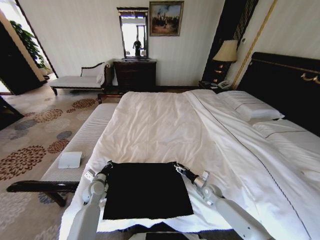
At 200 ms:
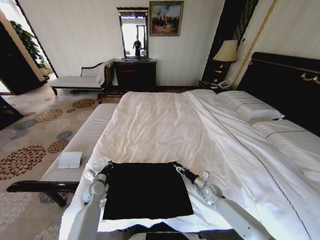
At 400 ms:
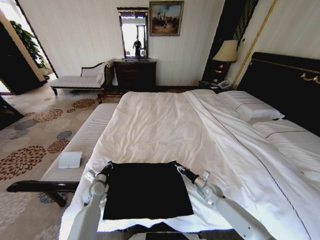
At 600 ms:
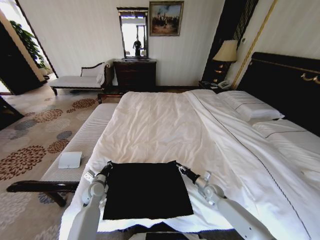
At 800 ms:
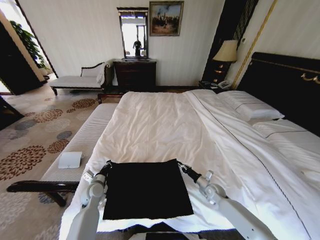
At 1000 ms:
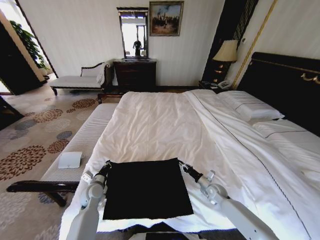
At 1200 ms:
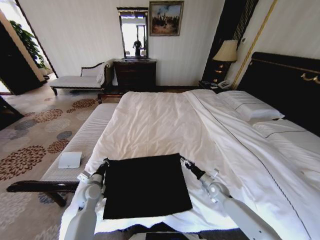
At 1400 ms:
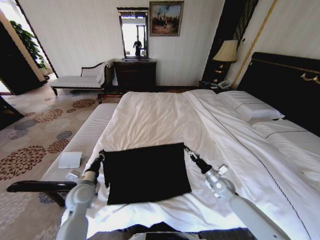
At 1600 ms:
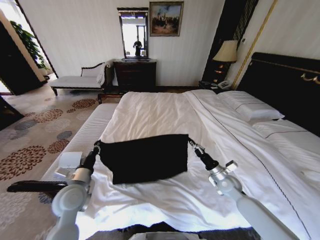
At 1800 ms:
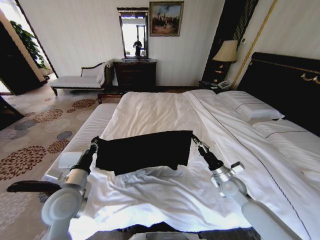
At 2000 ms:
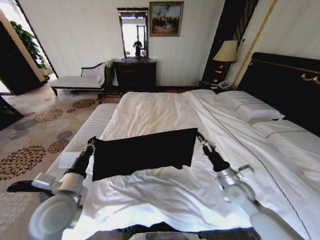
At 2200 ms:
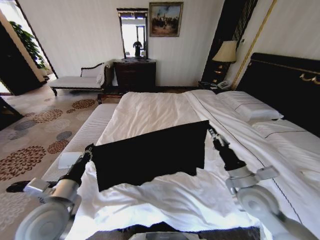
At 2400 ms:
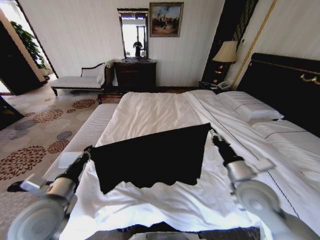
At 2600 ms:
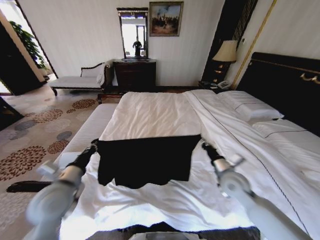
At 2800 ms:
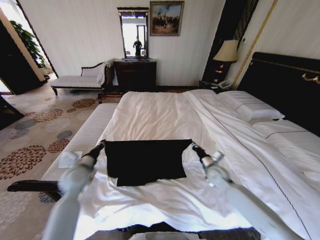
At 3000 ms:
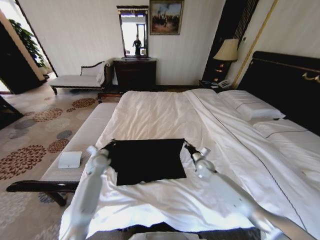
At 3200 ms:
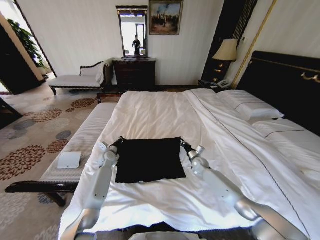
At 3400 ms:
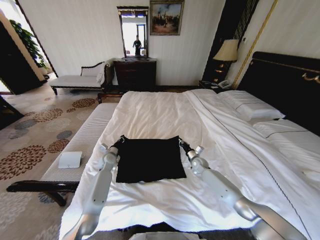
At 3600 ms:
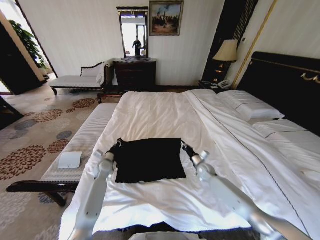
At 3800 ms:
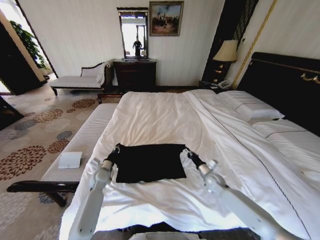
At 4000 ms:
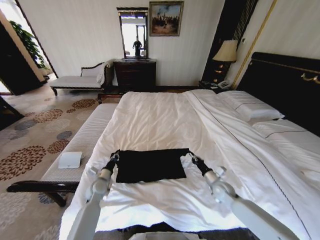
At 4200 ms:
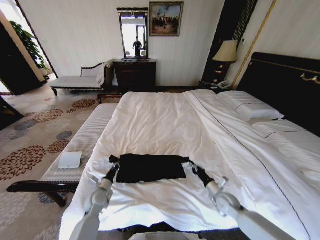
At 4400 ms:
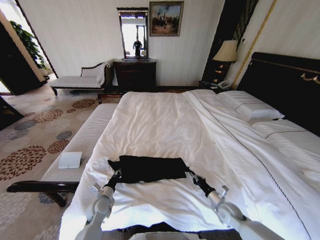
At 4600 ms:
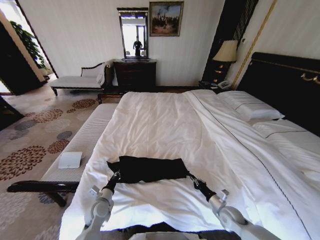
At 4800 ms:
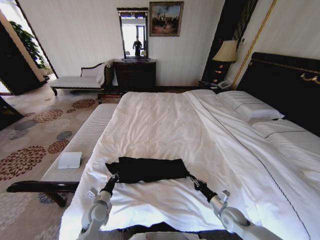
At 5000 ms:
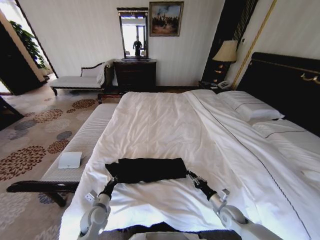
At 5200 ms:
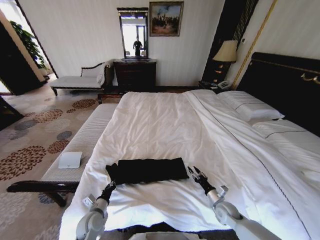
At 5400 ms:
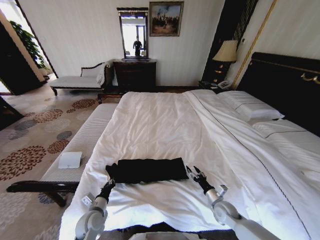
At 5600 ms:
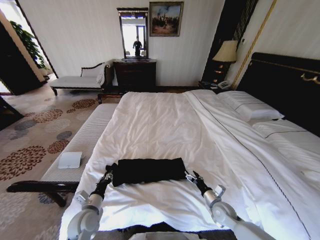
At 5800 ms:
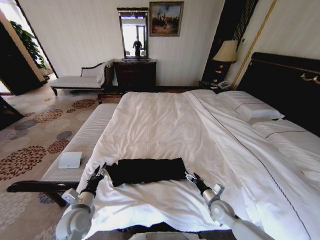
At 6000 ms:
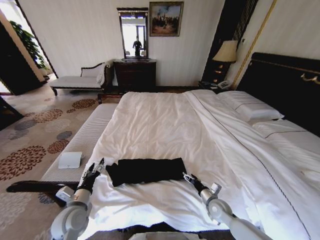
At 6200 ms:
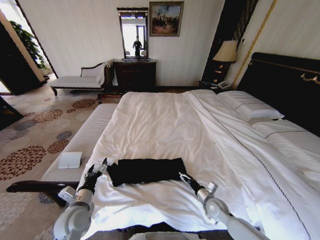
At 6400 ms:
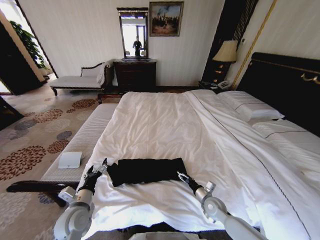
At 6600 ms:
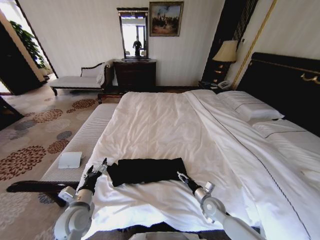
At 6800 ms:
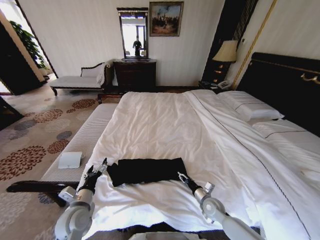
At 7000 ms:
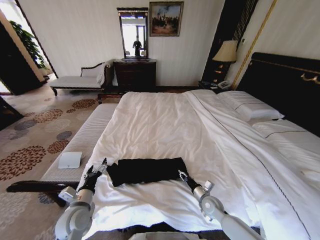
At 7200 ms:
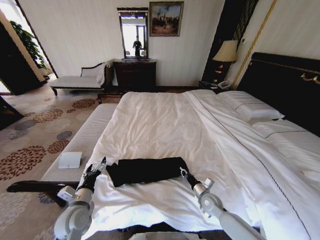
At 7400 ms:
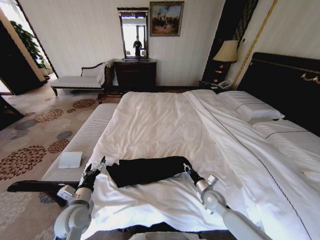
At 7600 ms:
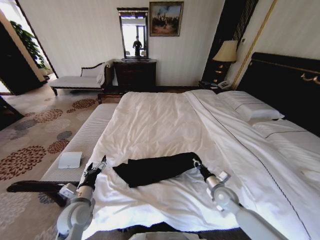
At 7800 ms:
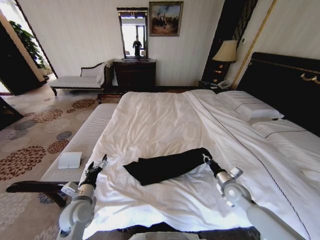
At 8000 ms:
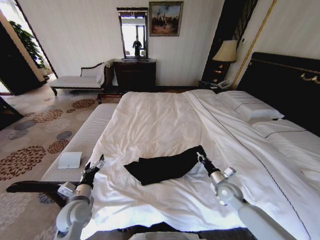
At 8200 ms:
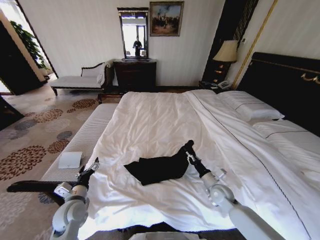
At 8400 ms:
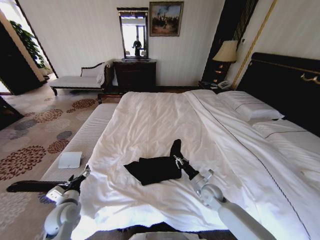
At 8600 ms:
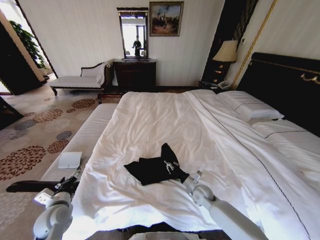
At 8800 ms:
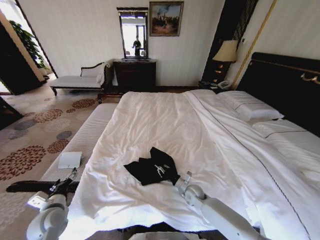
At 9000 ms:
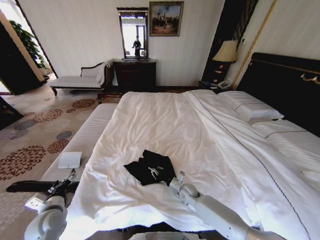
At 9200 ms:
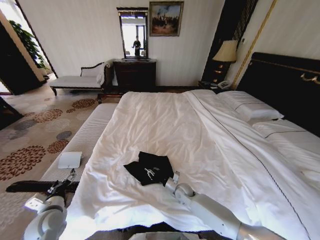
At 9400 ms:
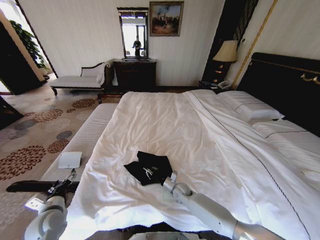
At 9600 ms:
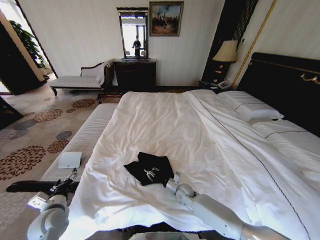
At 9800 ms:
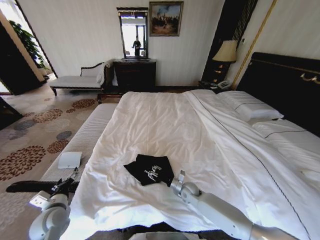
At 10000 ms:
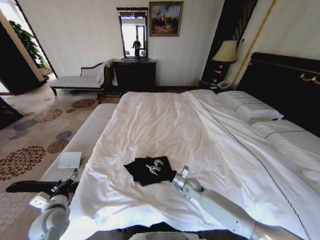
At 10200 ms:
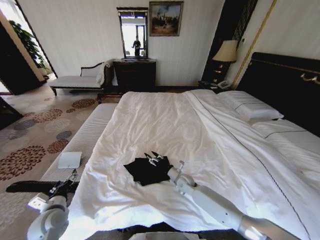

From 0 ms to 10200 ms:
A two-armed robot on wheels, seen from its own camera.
Task of the whole recording: Fold the clothes on the bed.
From 0 ms to 1400 ms: The two grippers go about 10 cm upward. The right gripper closes its fingers.
From 1400 ms to 3000 ms: The right gripper goes approximately 10 cm forward and to the left, and goes upward and returns, about 20 cm each way; the left gripper goes roughly 15 cm forward.
From 3000 ms to 4400 ms: The left gripper goes about 20 cm backward and downward; the right gripper travels backward by roughly 20 cm.
From 4400 ms to 5800 ms: The right gripper opens up, while the left gripper moves upward and backward, some 10 cm, and opens up.
From 5800 ms to 7200 ms: The right gripper closes its fingers, while the left gripper opens up.
From 7200 ms to 8800 ms: Both grippers move to the left, about 10 cm.
From 8800 ms to 10200 ms: The right gripper moves approximately 5 cm, and opens its fingers.

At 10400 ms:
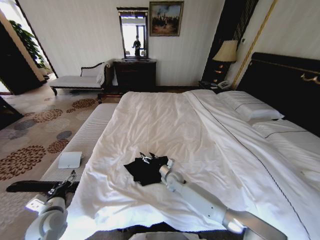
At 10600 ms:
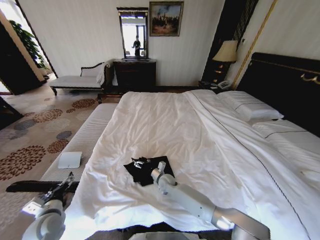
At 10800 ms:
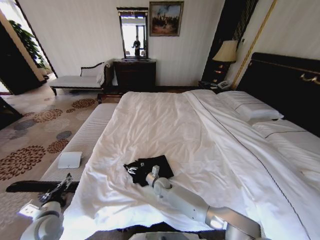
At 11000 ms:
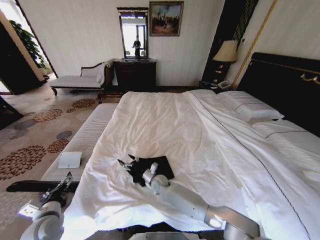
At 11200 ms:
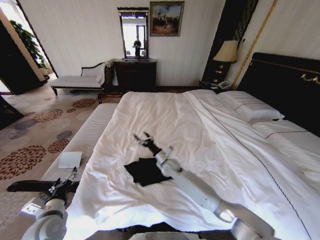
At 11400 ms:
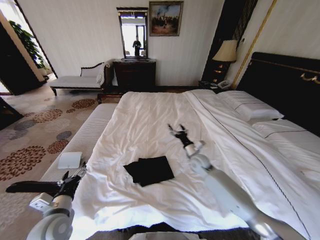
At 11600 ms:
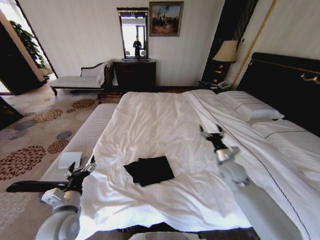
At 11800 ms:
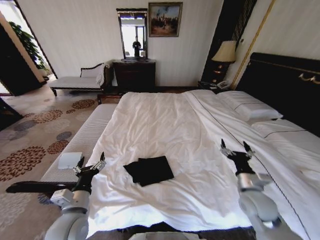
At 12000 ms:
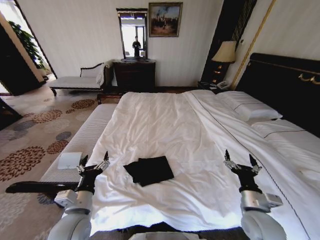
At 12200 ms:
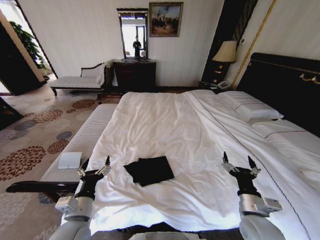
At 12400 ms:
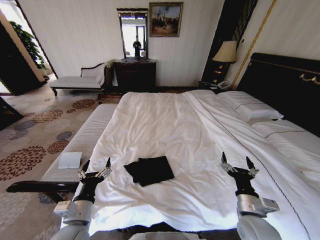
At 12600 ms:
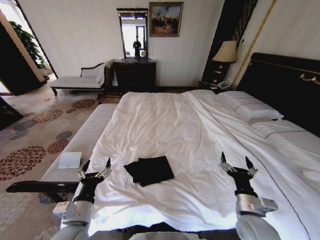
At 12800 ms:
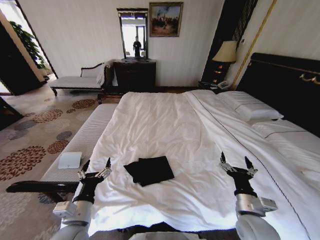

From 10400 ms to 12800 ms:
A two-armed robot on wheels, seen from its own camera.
Task of the whole recording: Fold the clothes on the bed.
From 10400 ms to 11600 ms: The left gripper shifts approximately 10 cm to the right and upward; the right gripper heads to the right and upward, covering some 25 cm.
From 11600 ms to 12800 ms: The left gripper shifts by about 5 cm; the right gripper heads backward, covering roughly 20 cm.
